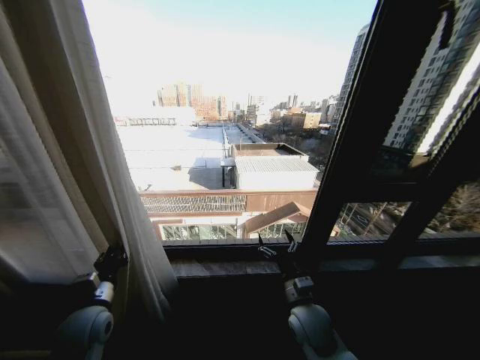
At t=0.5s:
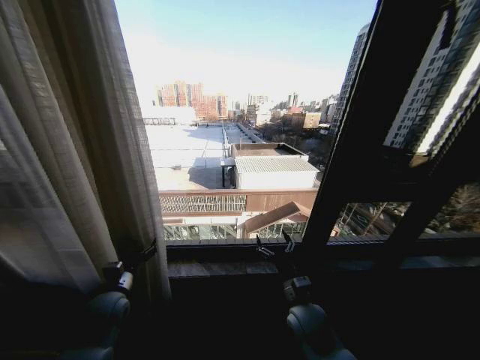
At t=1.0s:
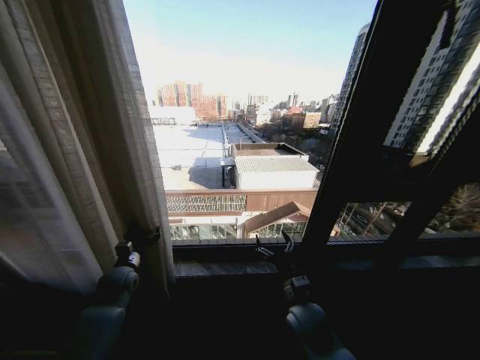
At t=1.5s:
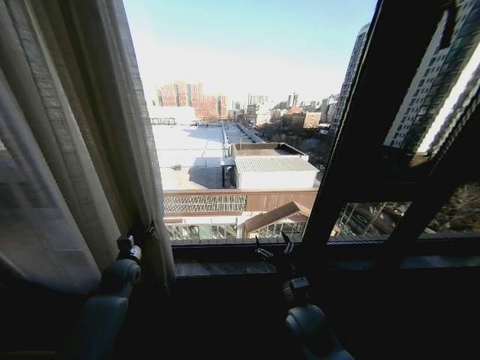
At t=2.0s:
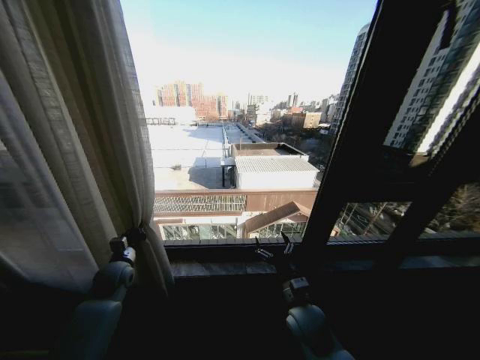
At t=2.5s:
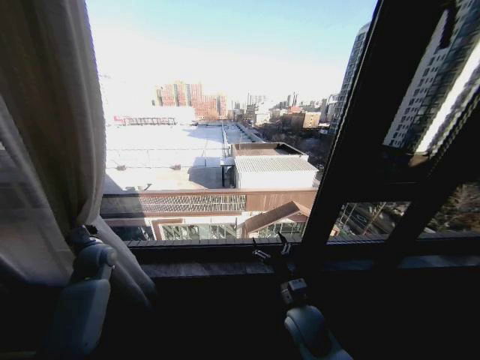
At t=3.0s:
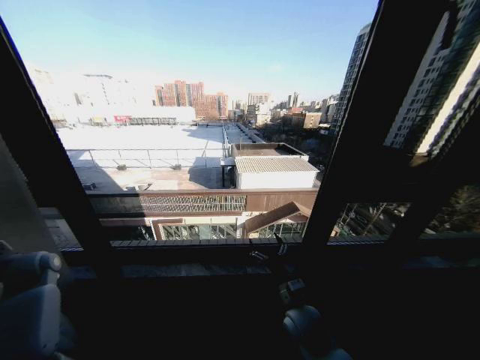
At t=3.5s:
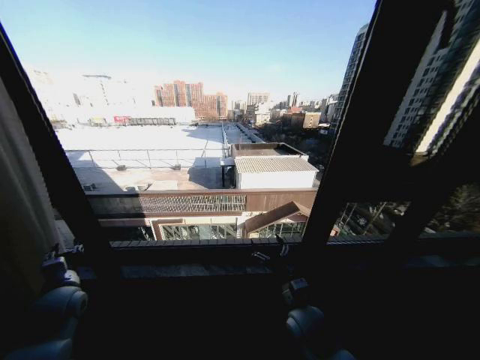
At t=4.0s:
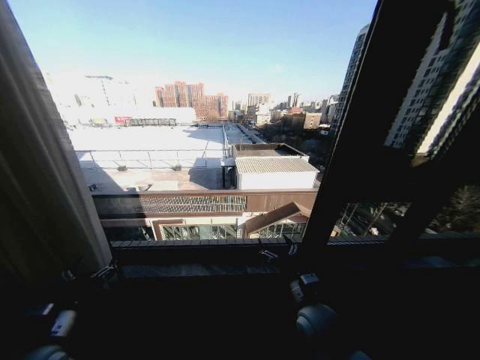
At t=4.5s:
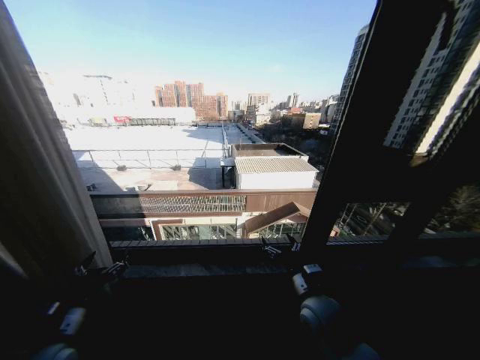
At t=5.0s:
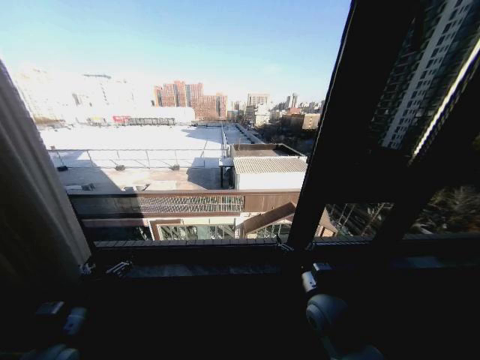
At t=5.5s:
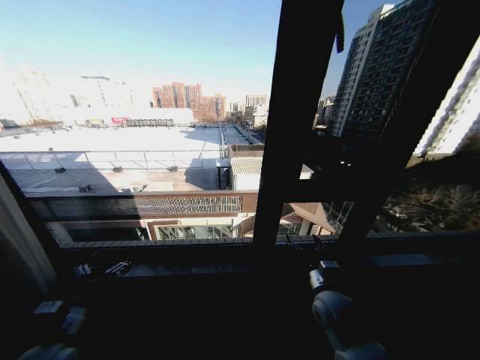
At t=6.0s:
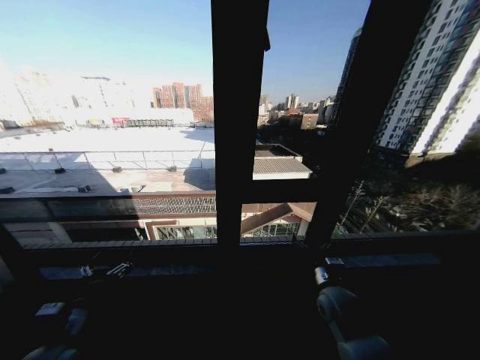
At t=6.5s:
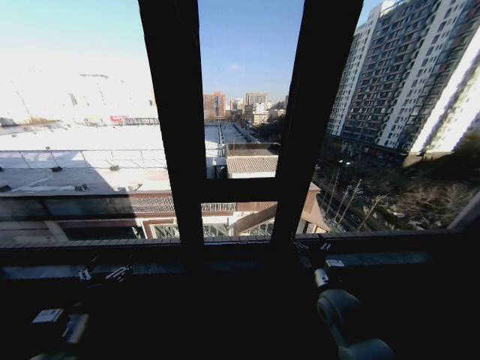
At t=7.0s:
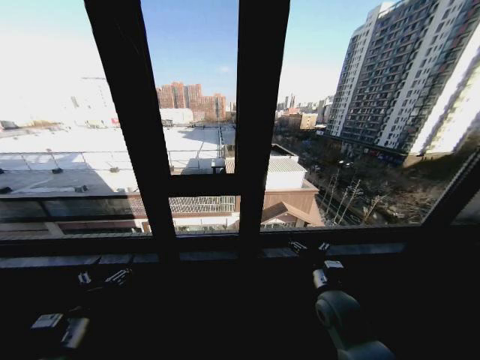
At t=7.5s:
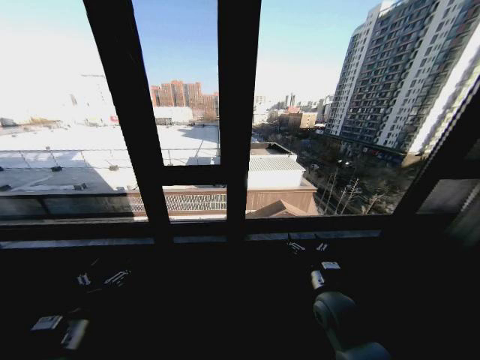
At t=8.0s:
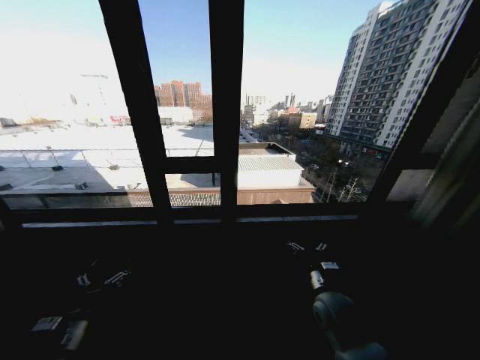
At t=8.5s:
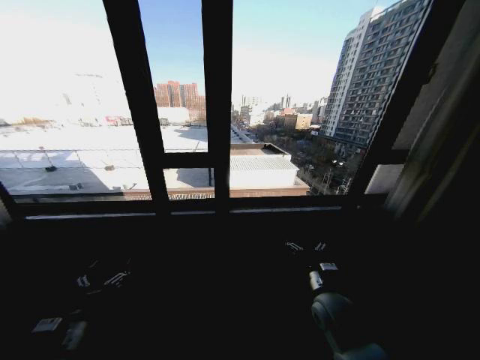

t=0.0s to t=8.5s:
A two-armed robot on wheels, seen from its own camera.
Task of the whole recording: Open the curtains by pulling them apart, changing their state from closed to fully open.
t=0.0s to t=2.0s: The left gripper travels forward by some 15 cm, and opens, then closes again.
t=2.0s to t=4.0s: The left gripper moves backward, some 20 cm, and opens up.
t=4.0s to t=6.5s: The right gripper travels to the right by about 5 cm.
